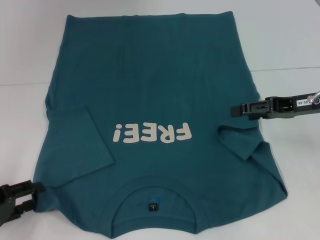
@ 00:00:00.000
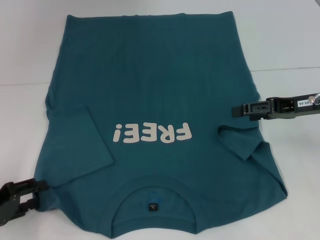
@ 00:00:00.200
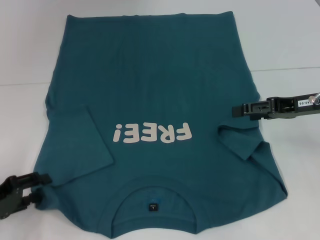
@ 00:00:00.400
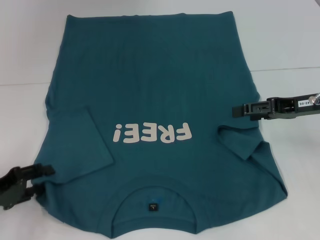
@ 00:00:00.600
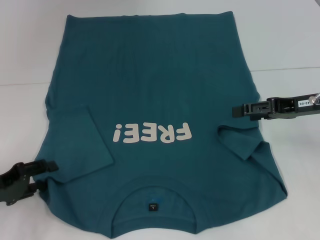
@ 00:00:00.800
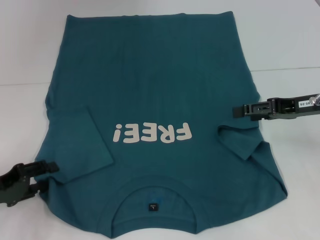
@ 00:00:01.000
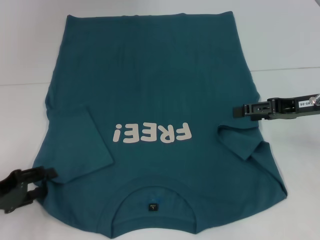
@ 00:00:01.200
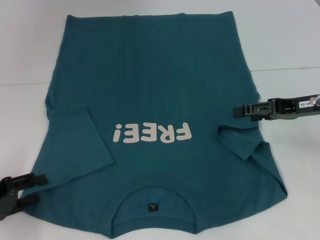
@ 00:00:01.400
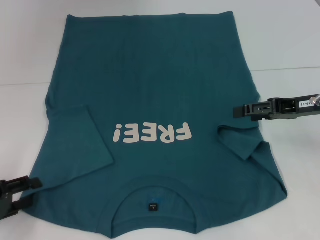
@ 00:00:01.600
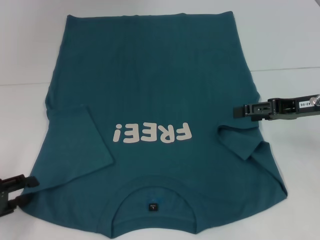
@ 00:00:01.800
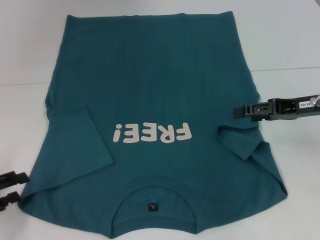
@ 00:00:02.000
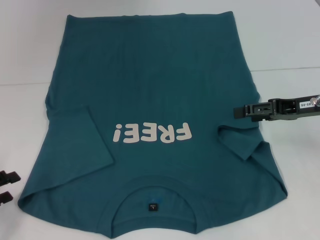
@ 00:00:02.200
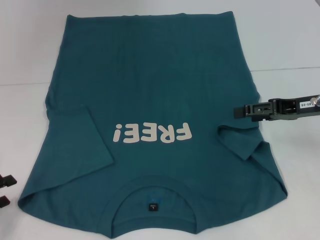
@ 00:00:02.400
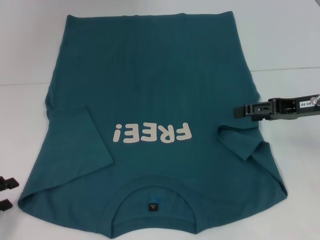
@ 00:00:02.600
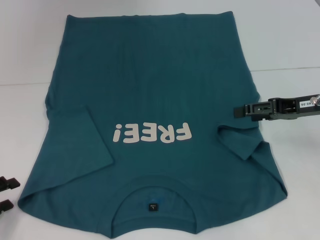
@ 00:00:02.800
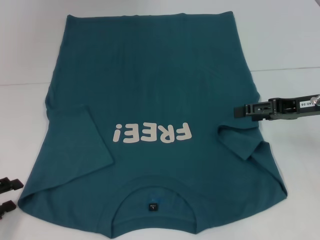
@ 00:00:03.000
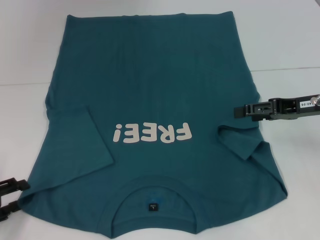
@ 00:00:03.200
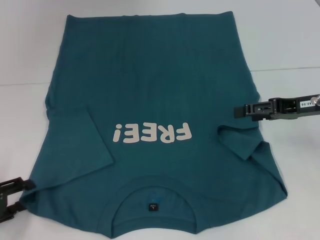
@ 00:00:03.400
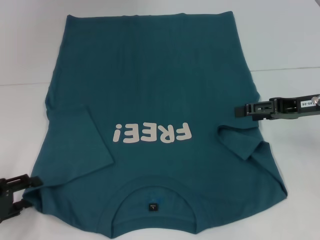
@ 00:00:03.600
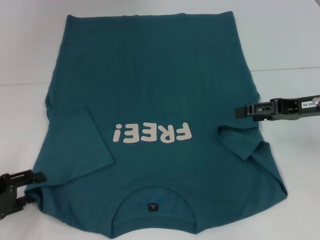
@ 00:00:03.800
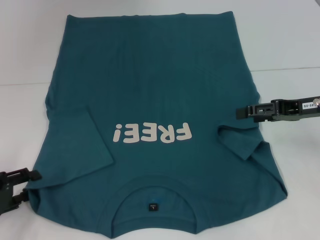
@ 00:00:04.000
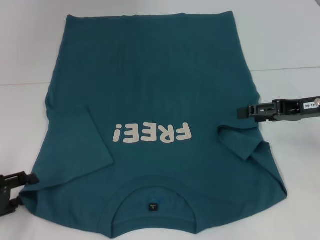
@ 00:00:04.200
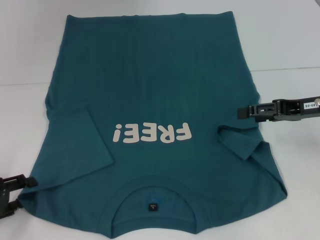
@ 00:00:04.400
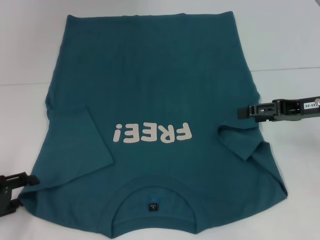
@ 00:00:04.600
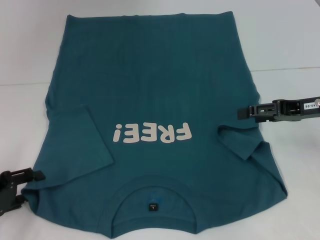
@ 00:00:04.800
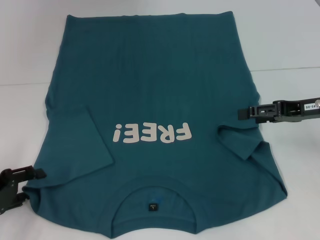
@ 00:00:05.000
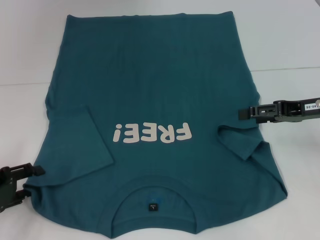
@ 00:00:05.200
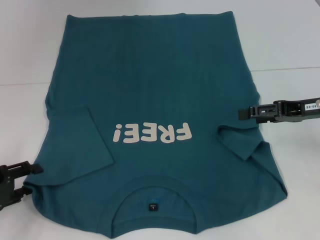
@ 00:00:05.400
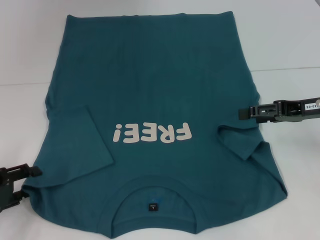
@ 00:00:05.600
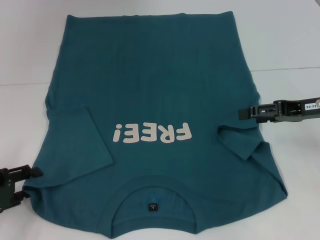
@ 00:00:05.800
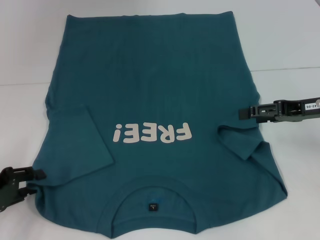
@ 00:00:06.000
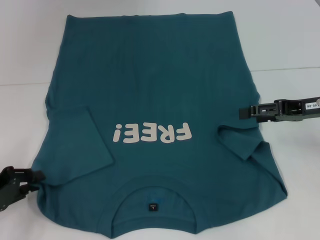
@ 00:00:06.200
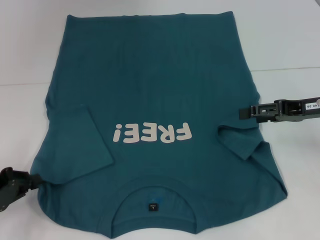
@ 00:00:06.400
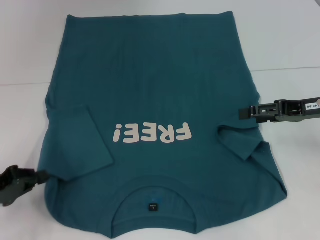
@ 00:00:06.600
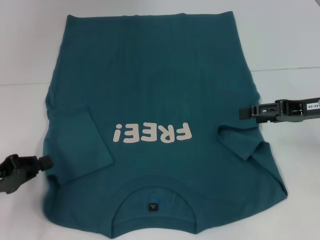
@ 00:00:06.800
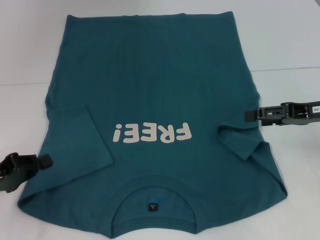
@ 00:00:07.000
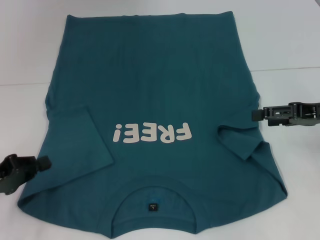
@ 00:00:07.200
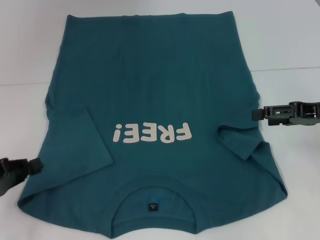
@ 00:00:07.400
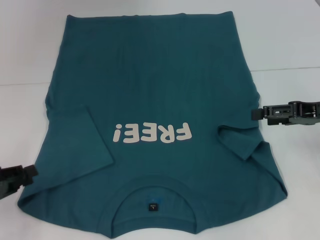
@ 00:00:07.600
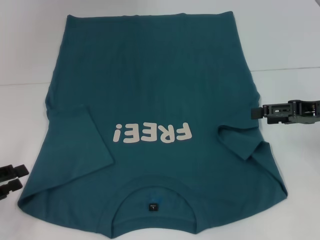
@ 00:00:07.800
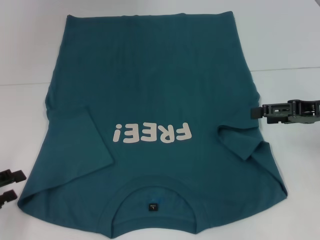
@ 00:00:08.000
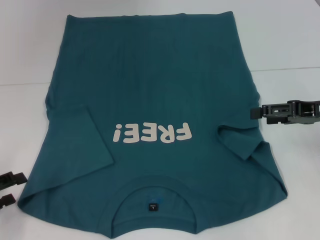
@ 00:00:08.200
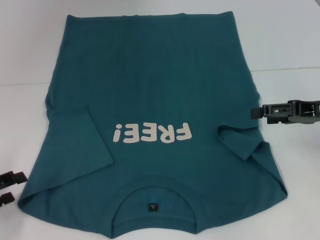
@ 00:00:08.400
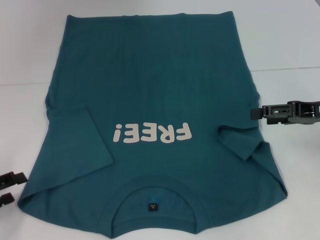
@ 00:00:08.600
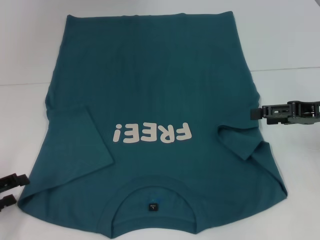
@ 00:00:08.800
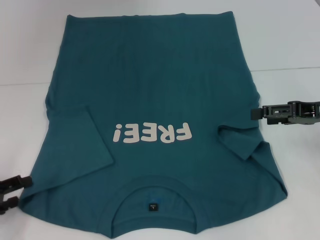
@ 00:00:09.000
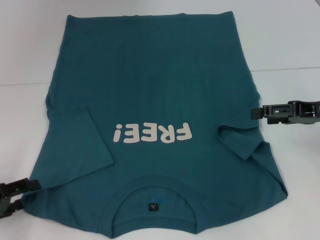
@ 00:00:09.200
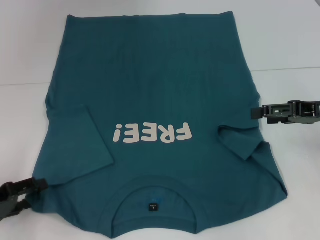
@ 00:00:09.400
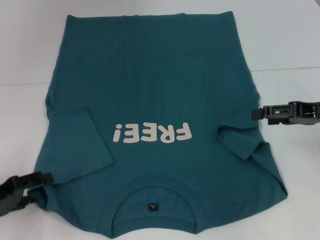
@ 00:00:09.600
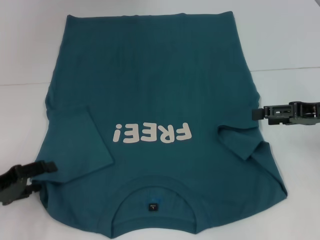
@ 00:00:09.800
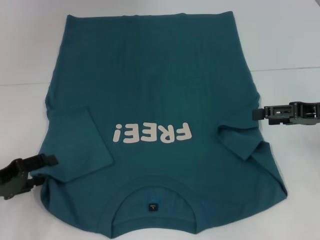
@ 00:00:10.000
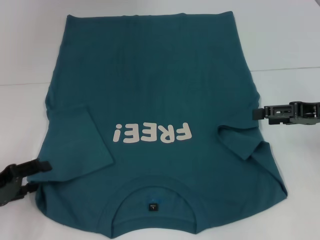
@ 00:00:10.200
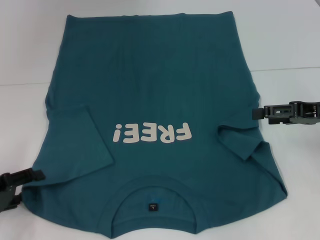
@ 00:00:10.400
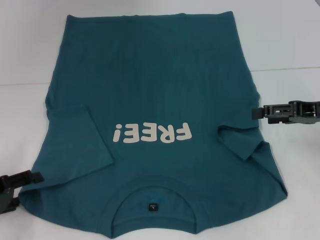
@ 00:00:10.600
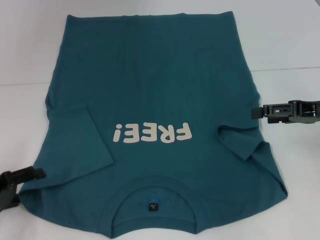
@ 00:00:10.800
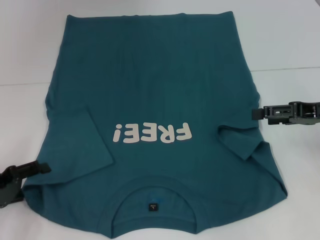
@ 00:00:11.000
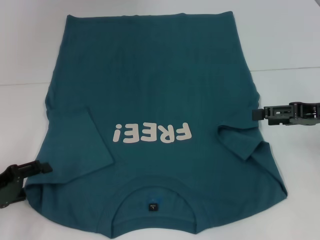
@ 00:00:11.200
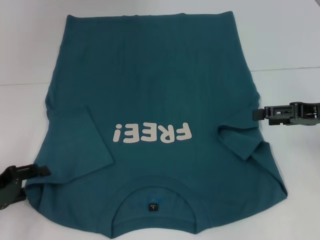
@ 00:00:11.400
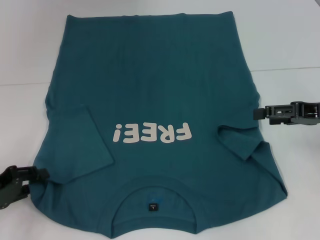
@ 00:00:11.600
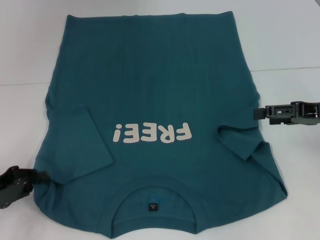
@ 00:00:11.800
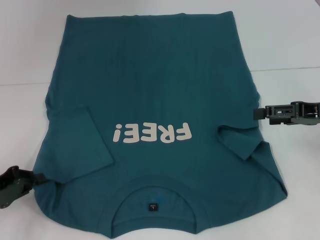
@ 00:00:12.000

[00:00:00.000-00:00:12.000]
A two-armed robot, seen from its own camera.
00:00:00.000 to 00:00:06.000: There are only small adjustments of the grippers.
00:00:06.000 to 00:00:07.600: The left gripper closes its fingers.
00:00:07.600 to 00:00:09.000: The left gripper opens up.
00:00:09.000 to 00:00:10.400: There are only small adjustments of the grippers.
00:00:10.400 to 00:00:12.000: The left gripper closes its fingers.

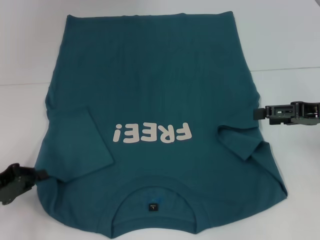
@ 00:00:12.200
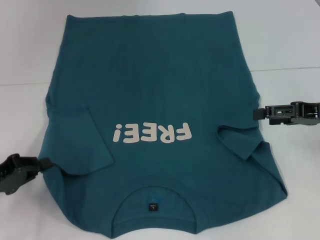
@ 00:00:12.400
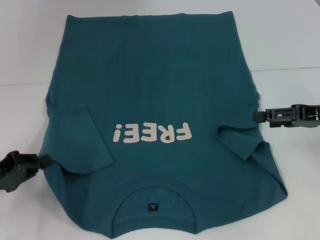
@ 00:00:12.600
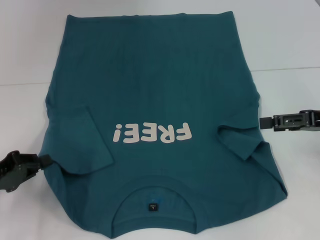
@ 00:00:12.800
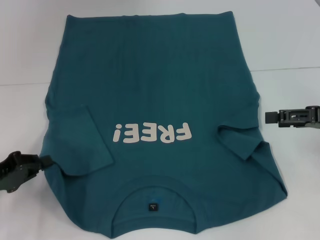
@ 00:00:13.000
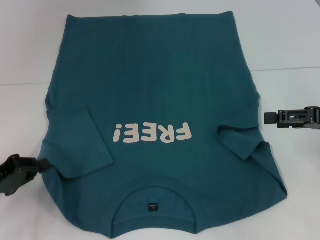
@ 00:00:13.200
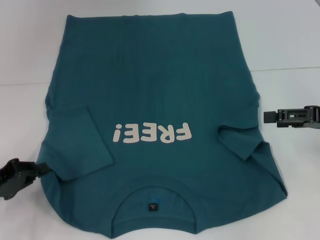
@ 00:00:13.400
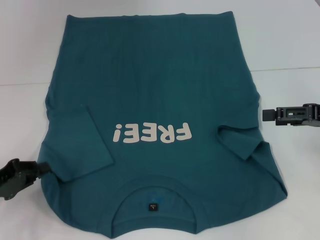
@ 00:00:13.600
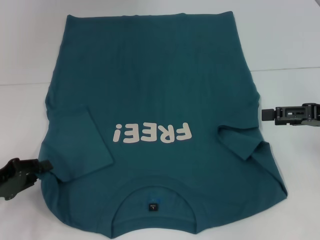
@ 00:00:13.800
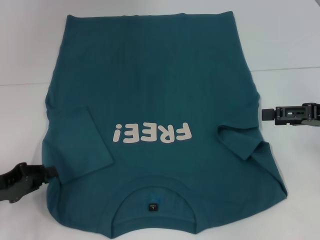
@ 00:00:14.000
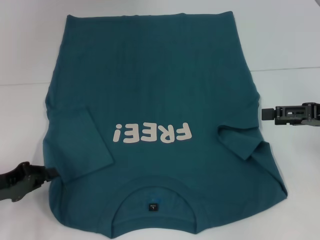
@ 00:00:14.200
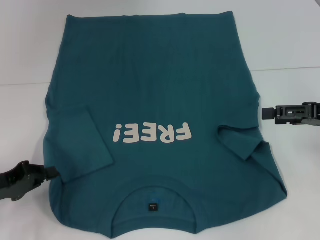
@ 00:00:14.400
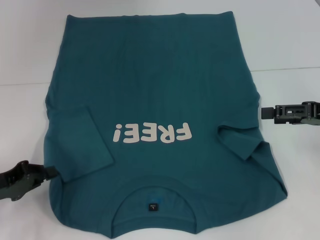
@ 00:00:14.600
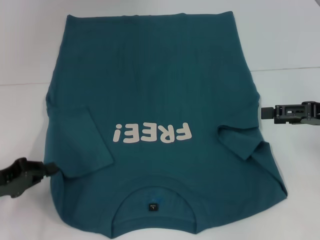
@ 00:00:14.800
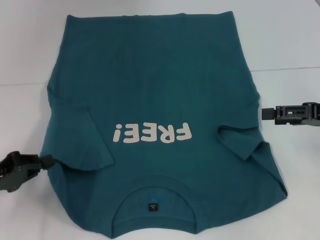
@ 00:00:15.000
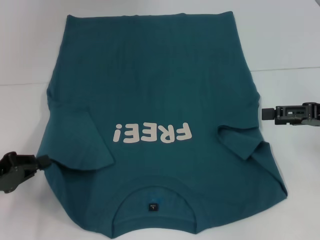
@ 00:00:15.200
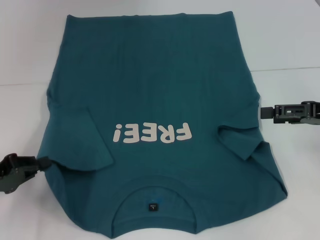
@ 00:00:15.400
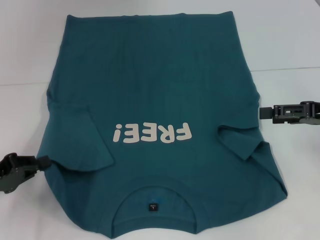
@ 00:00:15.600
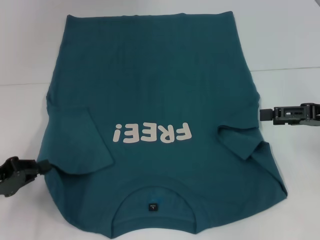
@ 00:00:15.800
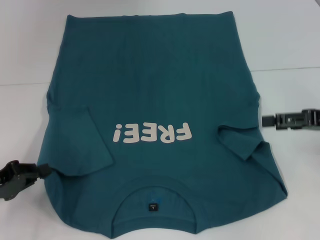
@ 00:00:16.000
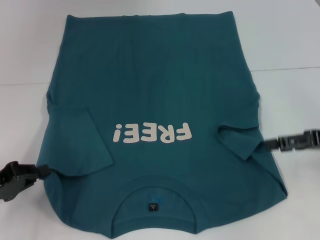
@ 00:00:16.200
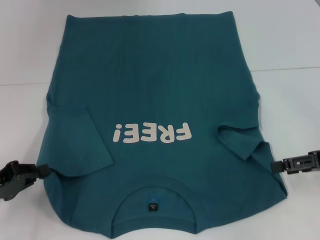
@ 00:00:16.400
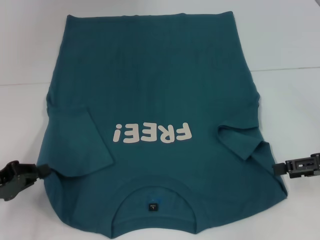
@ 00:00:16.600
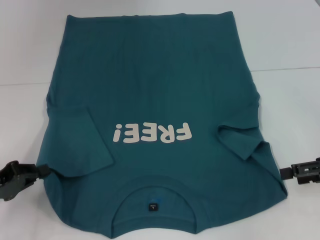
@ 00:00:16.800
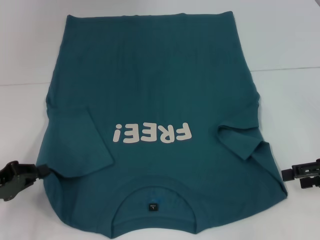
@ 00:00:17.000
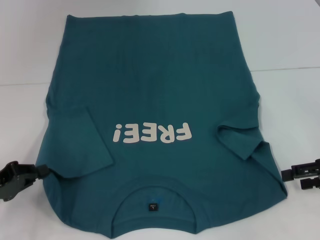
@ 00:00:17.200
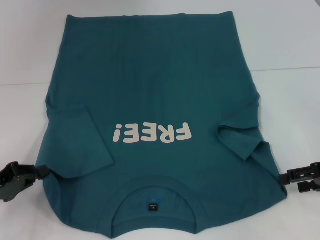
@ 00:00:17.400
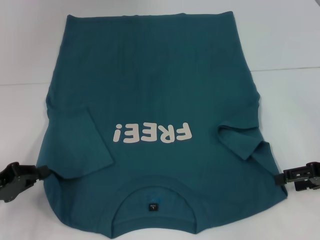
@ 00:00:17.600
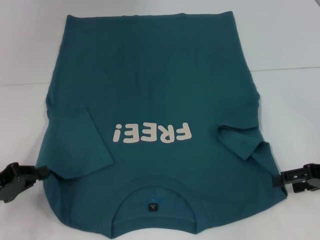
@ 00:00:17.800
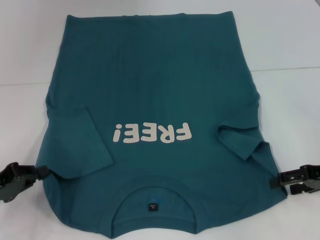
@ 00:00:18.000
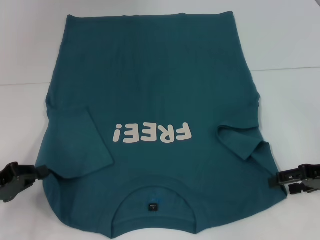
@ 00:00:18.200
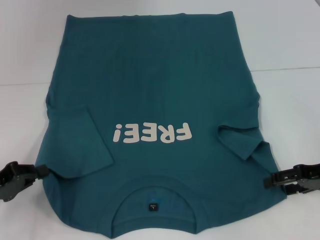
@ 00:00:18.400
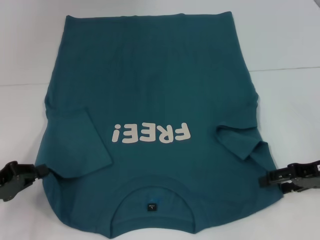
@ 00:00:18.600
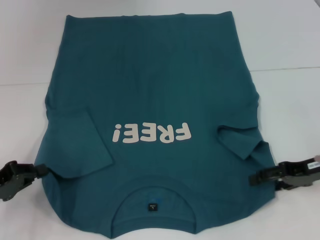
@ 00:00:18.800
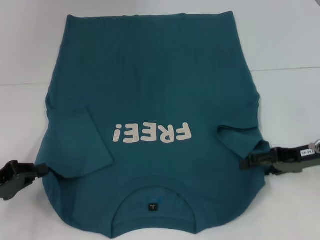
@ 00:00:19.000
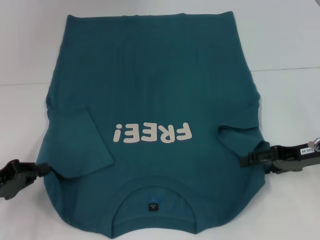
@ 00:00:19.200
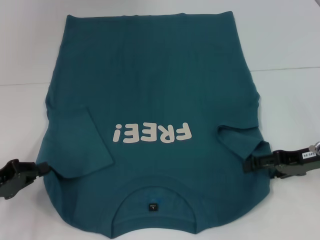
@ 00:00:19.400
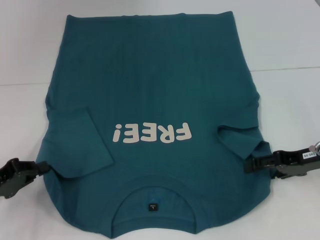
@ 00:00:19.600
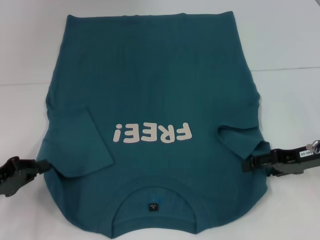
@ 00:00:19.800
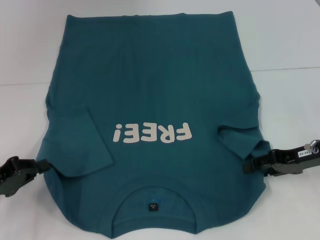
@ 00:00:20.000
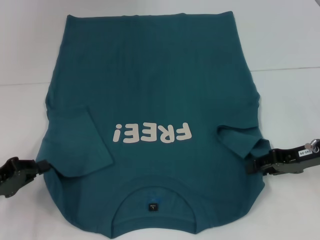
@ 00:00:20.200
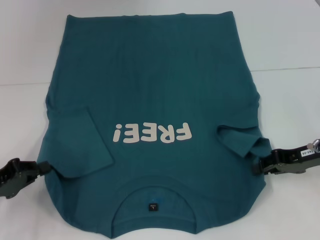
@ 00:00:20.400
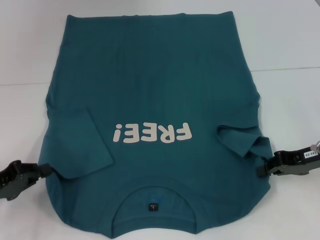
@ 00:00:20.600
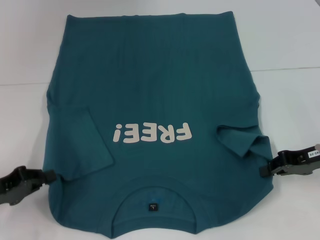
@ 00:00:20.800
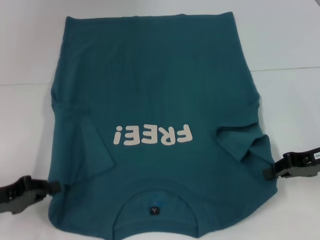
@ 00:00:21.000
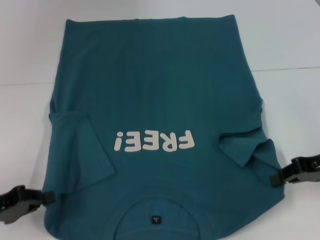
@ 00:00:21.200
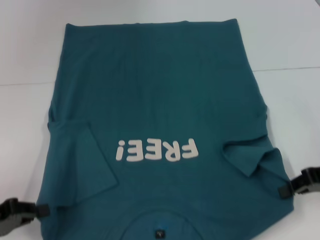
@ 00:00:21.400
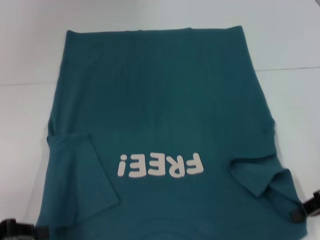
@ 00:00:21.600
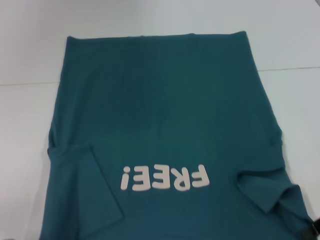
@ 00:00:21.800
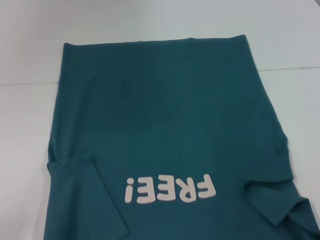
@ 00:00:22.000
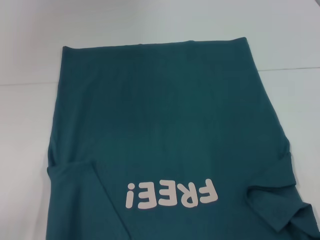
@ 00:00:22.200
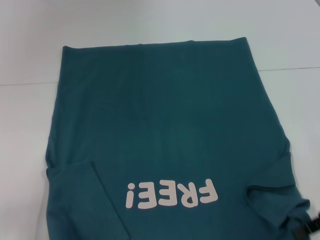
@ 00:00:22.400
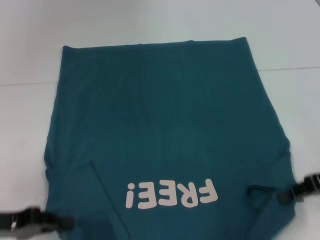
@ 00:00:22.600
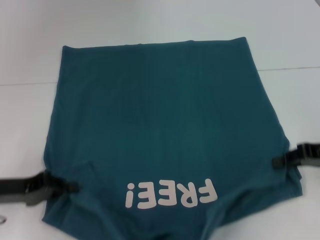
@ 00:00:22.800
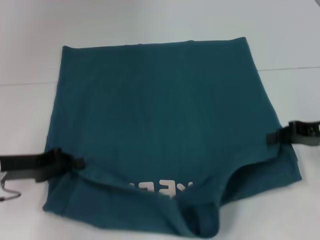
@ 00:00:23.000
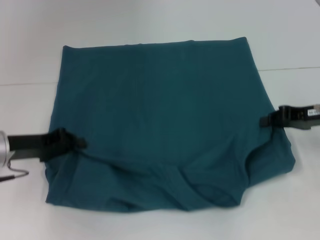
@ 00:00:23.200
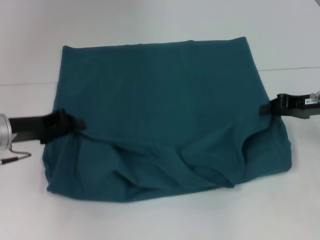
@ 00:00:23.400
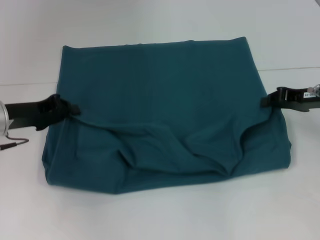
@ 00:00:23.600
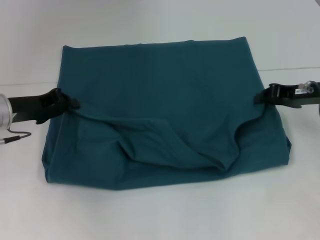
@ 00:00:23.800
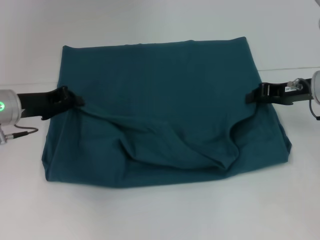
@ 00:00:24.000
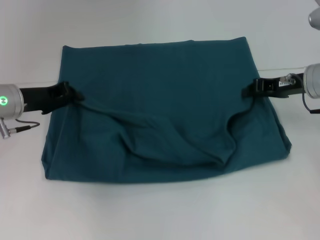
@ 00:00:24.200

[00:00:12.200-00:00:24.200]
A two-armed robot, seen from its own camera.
Step, 00:00:12.400 to 00:00:20.600: Grab the bottom right corner with your right hand.
00:00:12.200 to 00:00:16.600: There are only small adjustments of the grippers.
00:00:16.600 to 00:00:18.200: The grippers make only small movements.
00:00:18.200 to 00:00:19.800: The grippers move only a little.
00:00:19.800 to 00:00:21.200: The right gripper closes its fingers.
00:00:22.600 to 00:00:24.200: The right gripper shifts roughly 15 cm forward and to the left, while the left gripper travels forward by approximately 15 cm.
